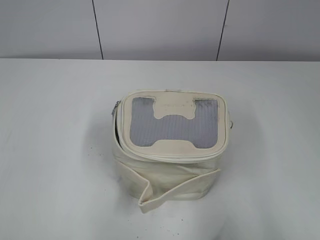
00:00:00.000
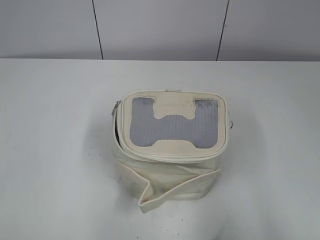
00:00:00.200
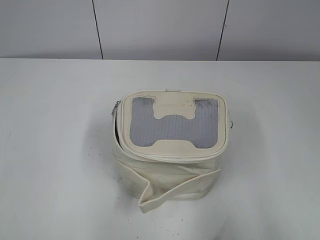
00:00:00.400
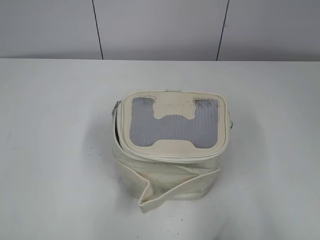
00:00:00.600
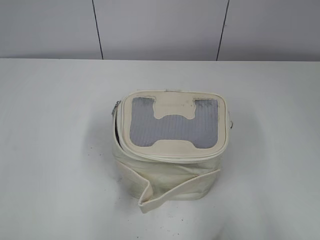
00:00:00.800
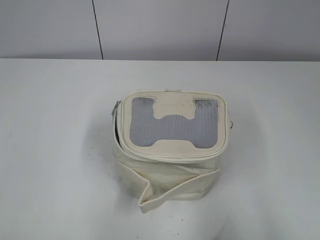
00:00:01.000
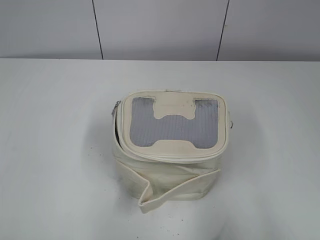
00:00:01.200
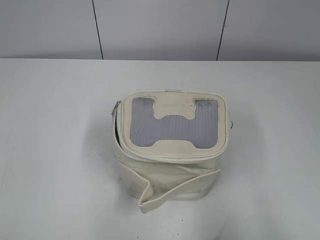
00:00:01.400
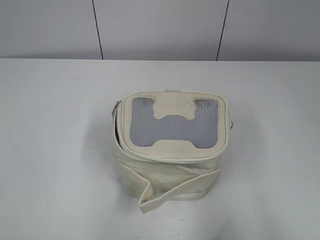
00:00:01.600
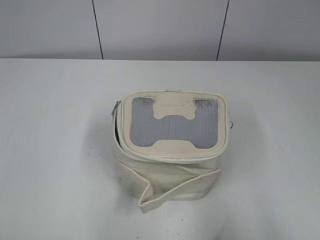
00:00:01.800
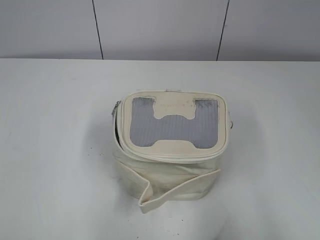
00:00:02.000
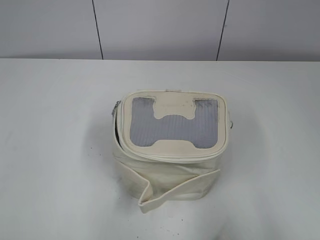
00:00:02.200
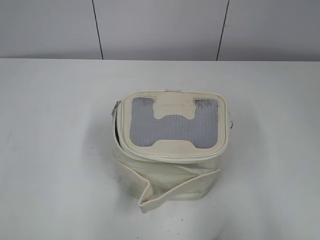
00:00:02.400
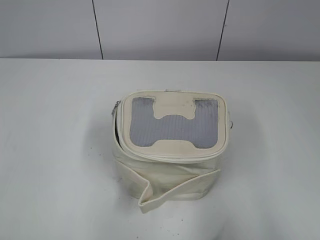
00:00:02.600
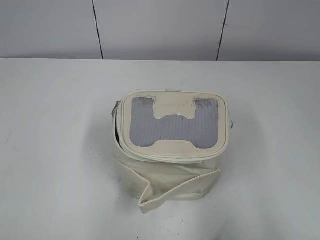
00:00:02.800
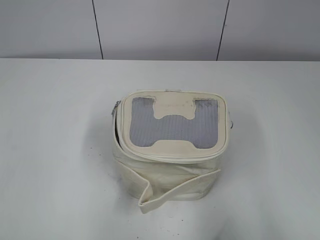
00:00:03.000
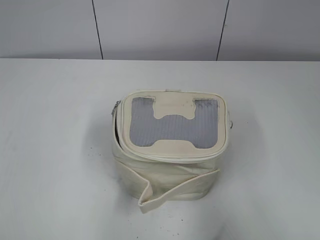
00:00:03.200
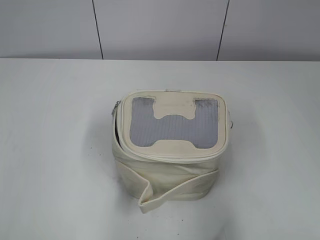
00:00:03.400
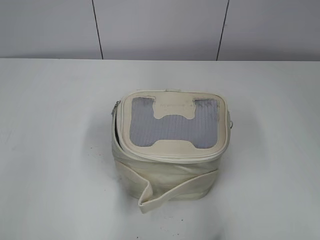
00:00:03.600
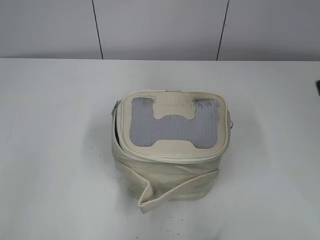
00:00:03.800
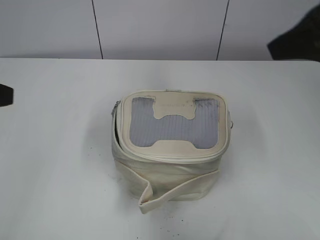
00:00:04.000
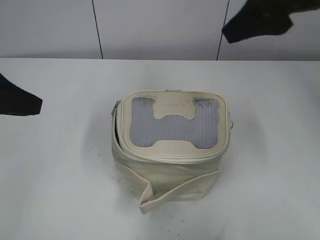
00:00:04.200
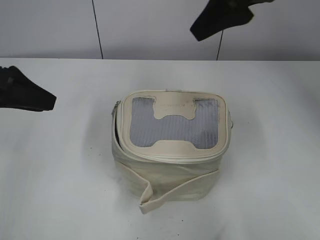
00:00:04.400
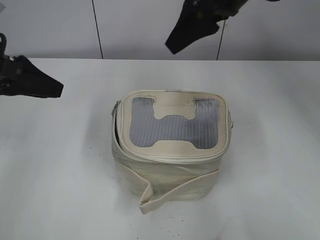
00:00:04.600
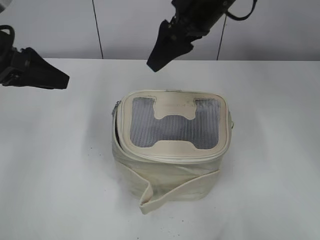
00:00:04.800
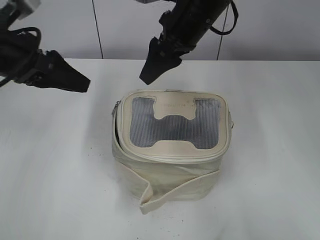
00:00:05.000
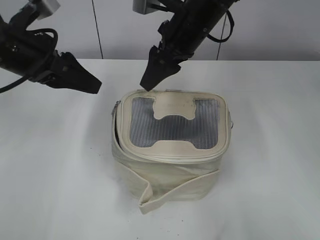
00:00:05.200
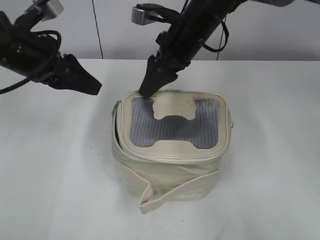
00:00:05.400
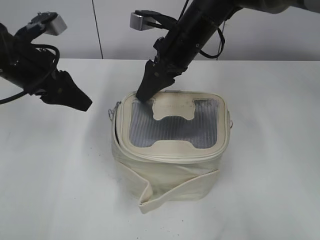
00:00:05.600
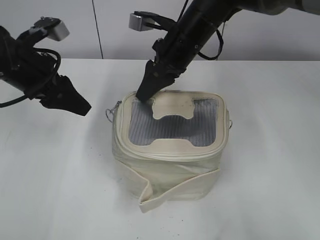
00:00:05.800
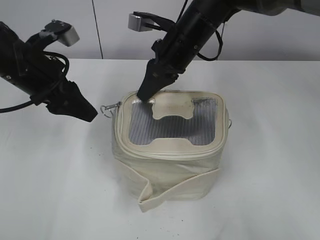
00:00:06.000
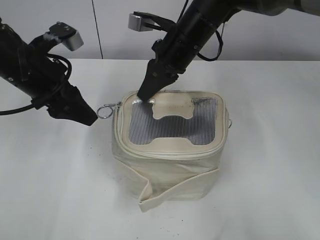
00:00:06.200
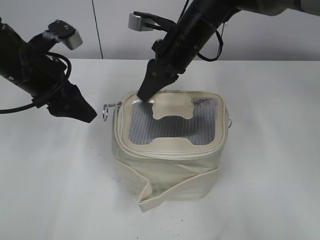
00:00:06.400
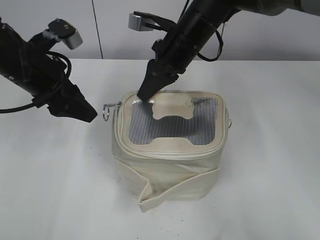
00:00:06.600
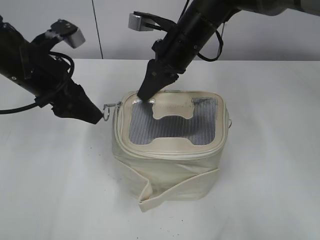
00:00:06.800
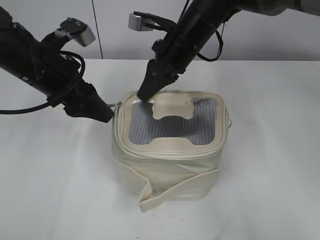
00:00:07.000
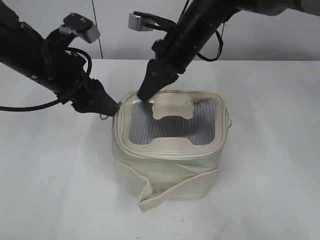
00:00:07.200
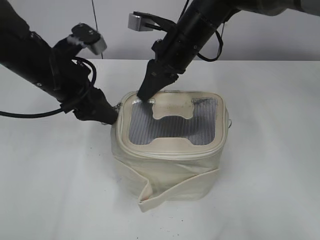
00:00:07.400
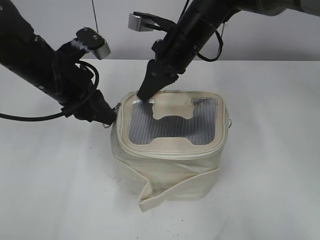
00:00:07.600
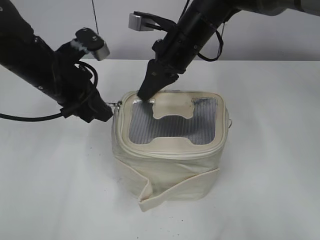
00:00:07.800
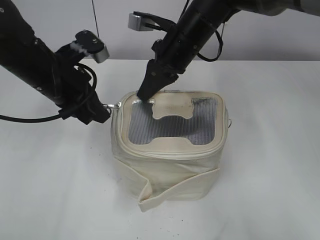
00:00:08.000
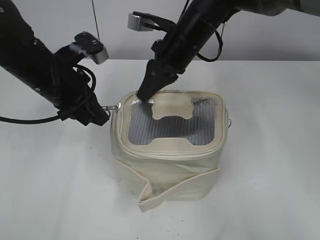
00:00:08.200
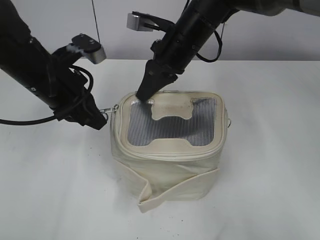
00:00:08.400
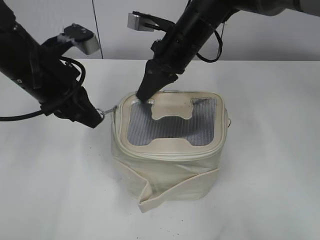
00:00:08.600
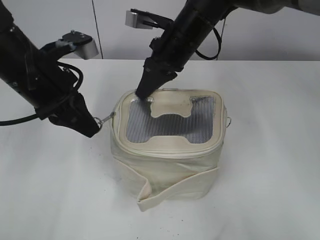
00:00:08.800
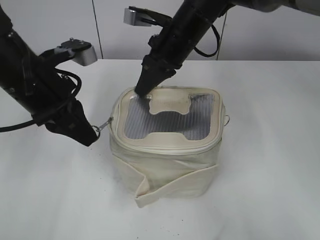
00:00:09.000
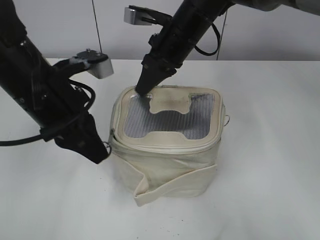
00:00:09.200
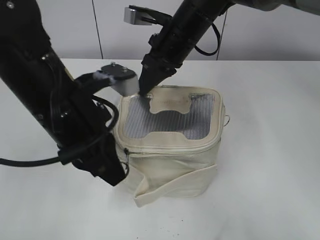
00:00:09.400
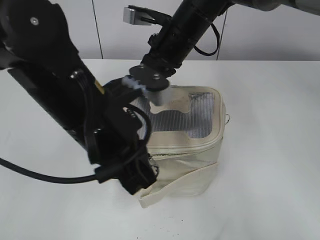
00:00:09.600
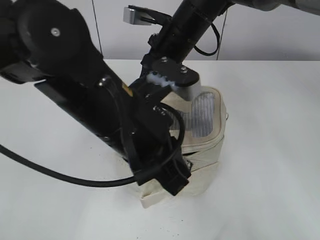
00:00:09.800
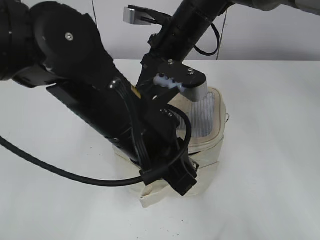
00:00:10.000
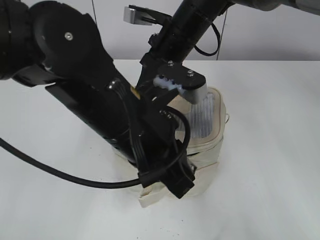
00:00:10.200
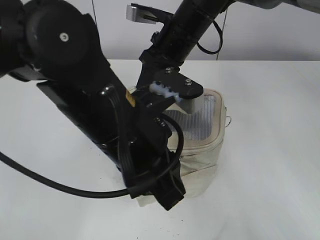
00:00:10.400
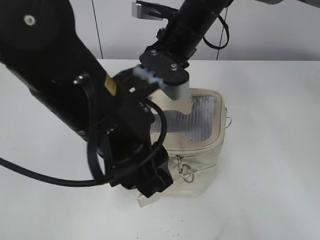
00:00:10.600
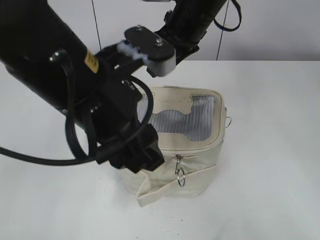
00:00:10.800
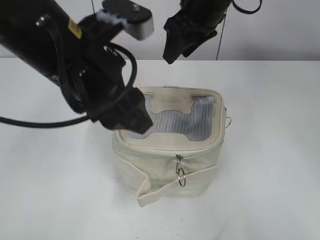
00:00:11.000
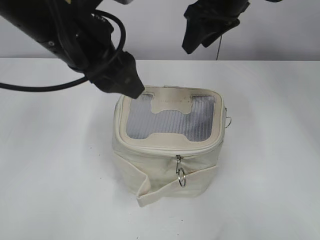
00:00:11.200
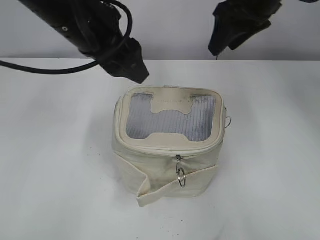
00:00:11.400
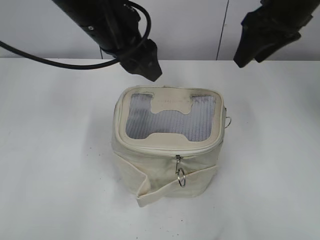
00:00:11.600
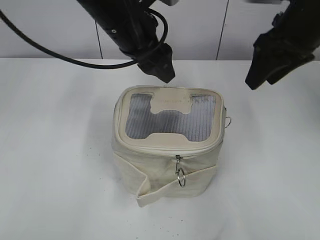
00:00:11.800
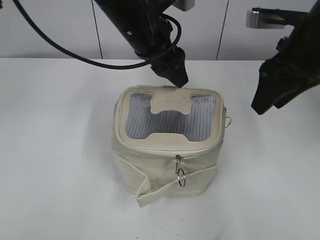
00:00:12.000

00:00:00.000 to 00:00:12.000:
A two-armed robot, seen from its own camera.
Step, 00:00:00.000 to 00:00:10.200: Zip up the bag with your left hand.
Step, 00:00:10.400 to 00:00:10.600: Hold the bag with your right hand.
00:00:01.600 to 00:00:03.000: Neither gripper changes place.
00:00:03.000 to 00:00:04.400: The right gripper is displaced forward and to the left by about 35 cm; the left gripper is displaced forward by some 25 cm.
00:00:04.400 to 00:00:06.000: The right gripper goes roughly 20 cm downward, to the left and forward, and closes up; the left gripper goes about 10 cm forward and to the right.
00:00:06.000 to 00:00:07.600: There are only small adjustments of the grippers.
00:00:07.600 to 00:00:09.000: The left gripper closes.
00:00:09.000 to 00:00:10.400: The left gripper goes some 15 cm to the right and backward.
00:00:10.400 to 00:00:12.000: The right gripper is displaced to the right and backward by about 20 cm, and opens; the left gripper is displaced forward by roughly 15 cm, and opens.

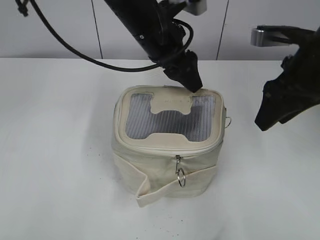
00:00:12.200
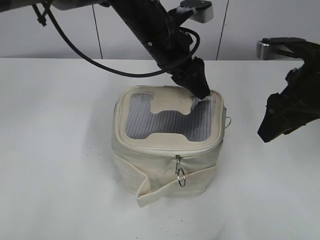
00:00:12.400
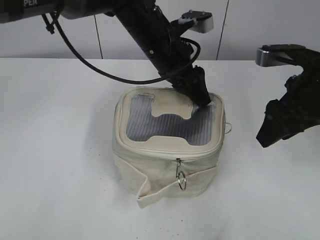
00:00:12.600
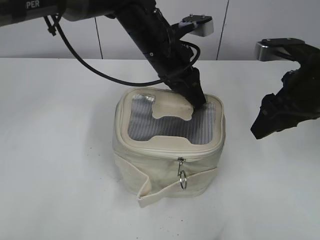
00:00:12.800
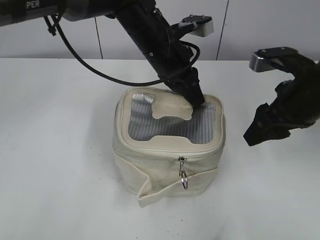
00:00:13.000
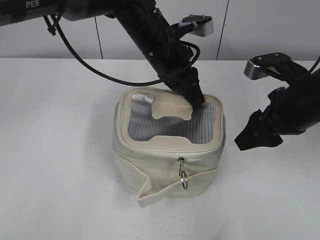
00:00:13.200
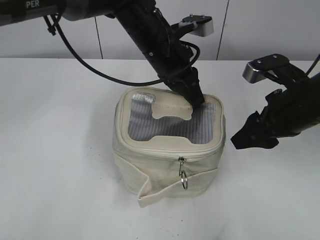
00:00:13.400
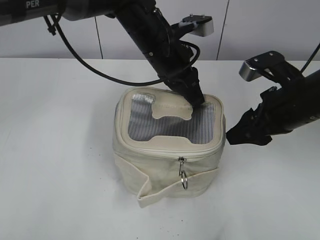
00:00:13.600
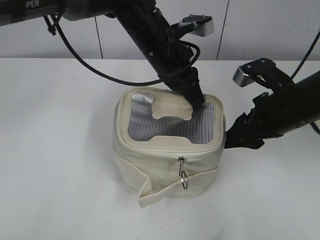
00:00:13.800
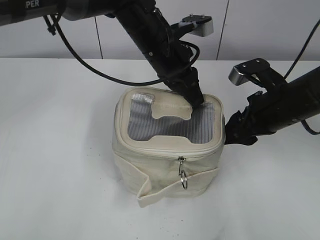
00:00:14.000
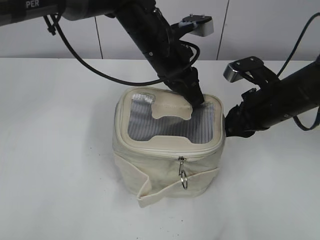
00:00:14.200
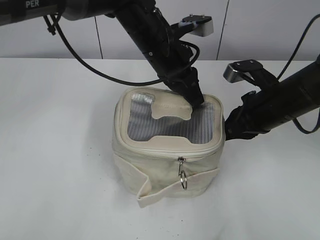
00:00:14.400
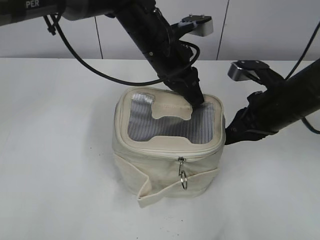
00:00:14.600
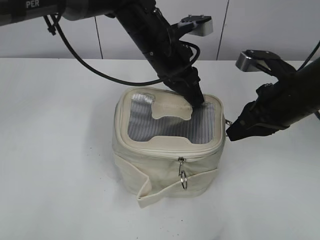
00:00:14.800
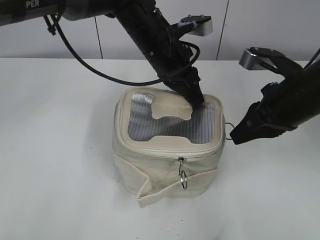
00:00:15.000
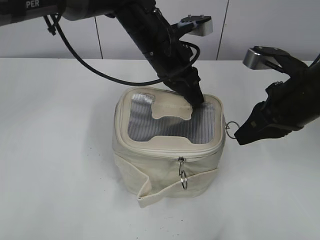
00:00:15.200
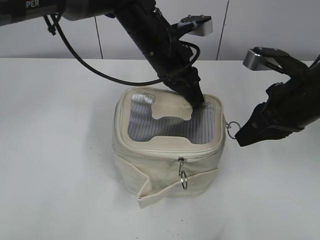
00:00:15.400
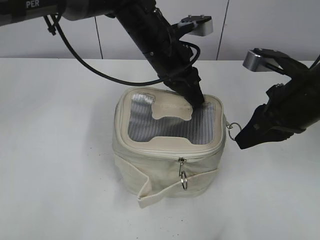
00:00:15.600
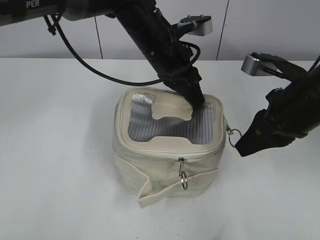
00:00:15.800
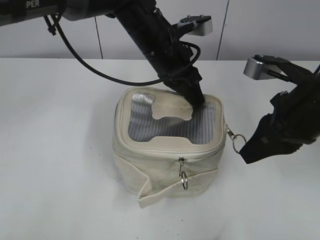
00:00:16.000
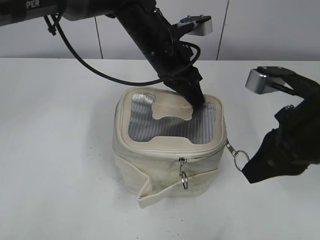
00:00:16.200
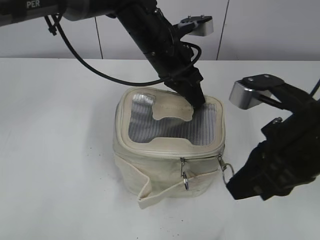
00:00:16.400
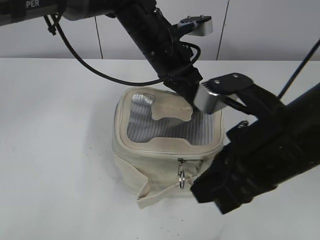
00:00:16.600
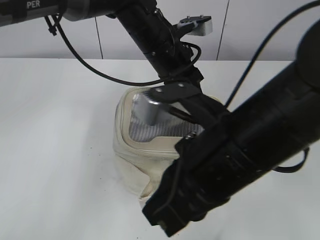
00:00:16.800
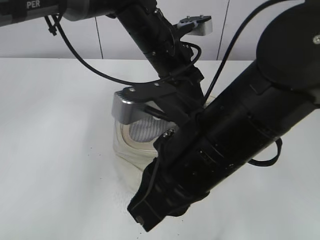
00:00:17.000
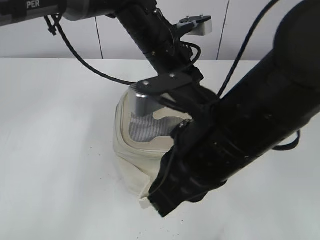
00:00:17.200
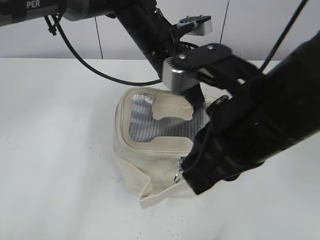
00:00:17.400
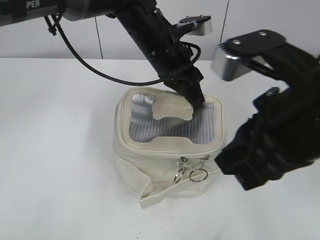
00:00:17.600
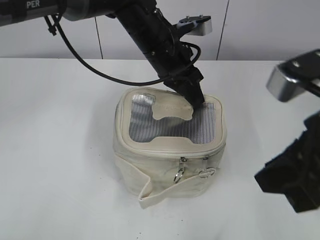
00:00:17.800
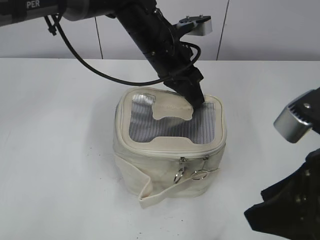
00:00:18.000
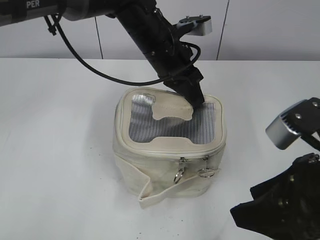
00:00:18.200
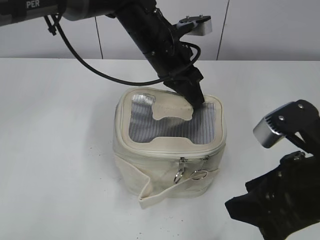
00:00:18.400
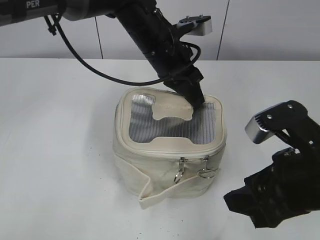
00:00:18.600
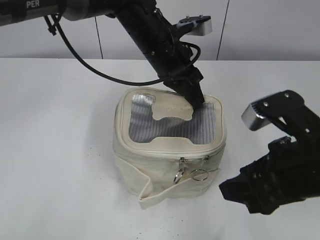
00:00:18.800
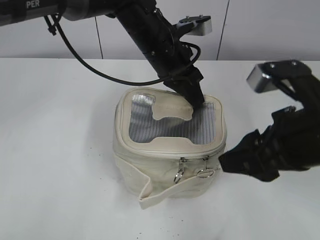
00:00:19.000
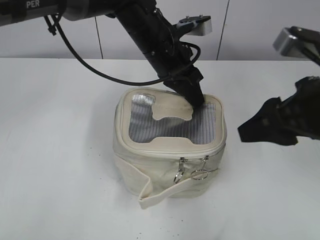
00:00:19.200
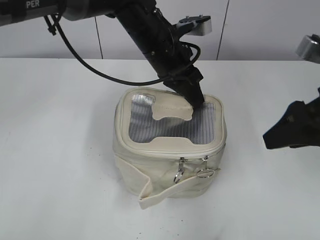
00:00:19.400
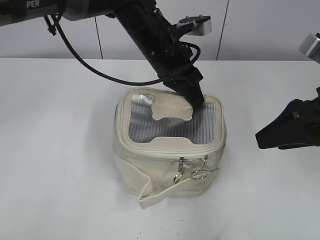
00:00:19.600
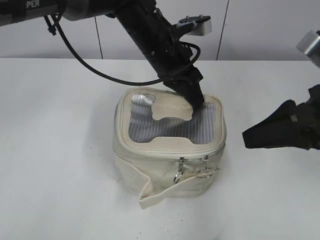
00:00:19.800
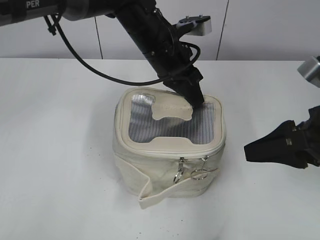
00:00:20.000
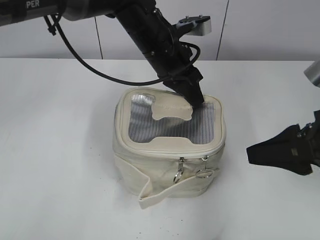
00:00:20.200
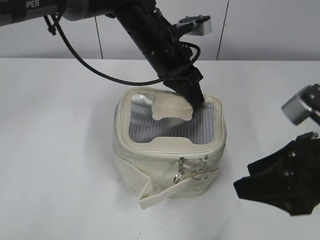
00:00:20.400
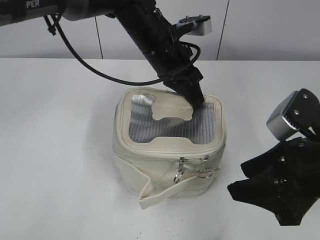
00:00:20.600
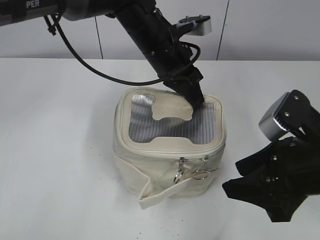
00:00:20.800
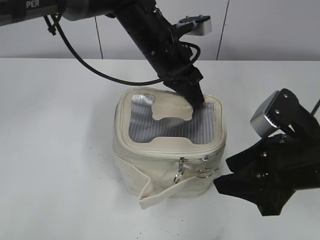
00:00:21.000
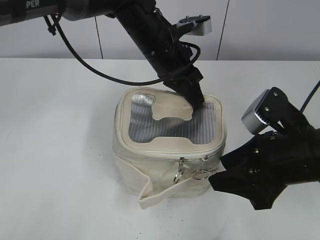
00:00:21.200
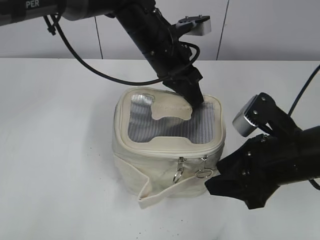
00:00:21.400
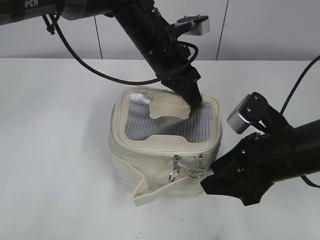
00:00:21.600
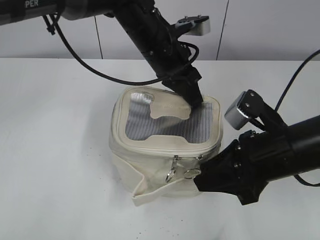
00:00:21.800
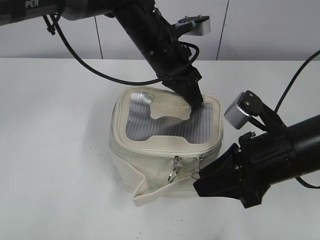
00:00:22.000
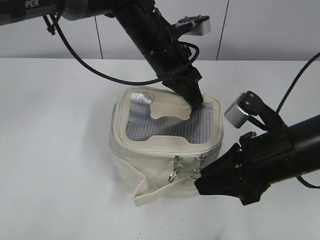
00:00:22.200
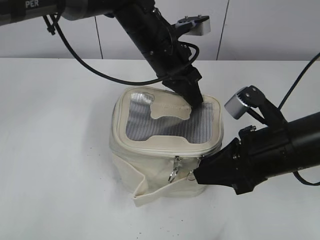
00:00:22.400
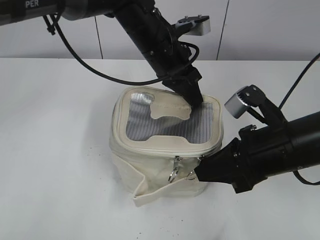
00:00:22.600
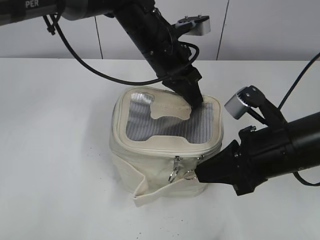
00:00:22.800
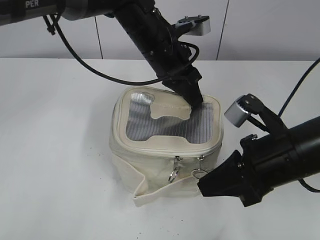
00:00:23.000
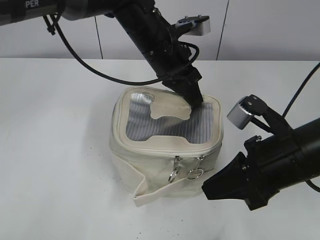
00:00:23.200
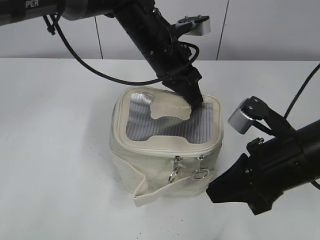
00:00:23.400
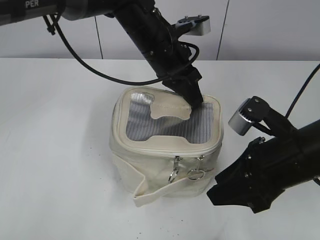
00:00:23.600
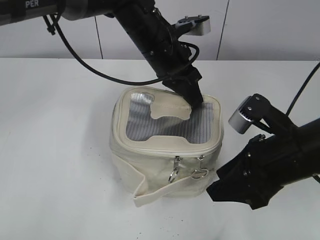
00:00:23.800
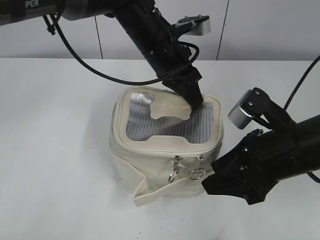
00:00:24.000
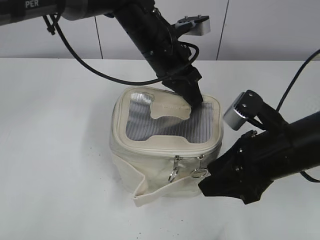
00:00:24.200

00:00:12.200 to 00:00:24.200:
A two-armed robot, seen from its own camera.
00:00:12.200 to 00:00:13.800: The left gripper closes up; the right gripper shifts roughly 10 cm downward.
00:00:13.800 to 00:00:15.200: The right gripper closes.
00:00:15.200 to 00:00:16.600: The right gripper heads backward and to the left, covering roughly 10 cm.
00:00:16.600 to 00:00:18.200: The right gripper is displaced to the right by about 5 cm, and opens up.
00:00:18.200 to 00:00:19.800: The right gripper travels forward by about 10 cm.
00:00:19.800 to 00:00:21.200: The right gripper shifts about 5 cm downward.
00:00:21.200 to 00:00:22.600: The right gripper closes.
00:00:22.600 to 00:00:24.200: The right gripper opens.
